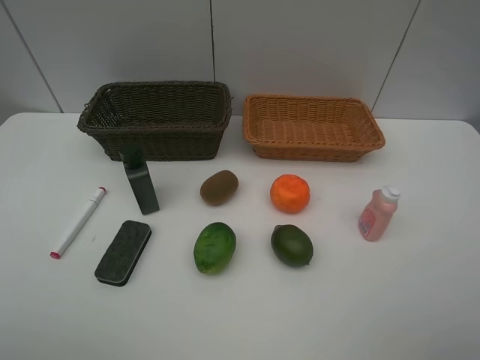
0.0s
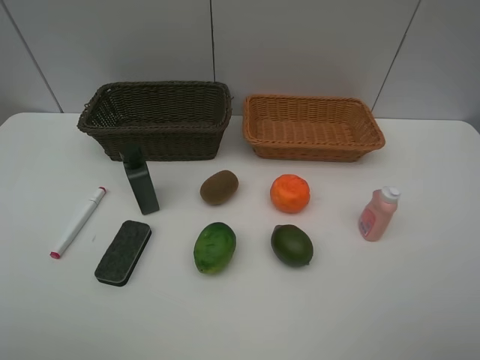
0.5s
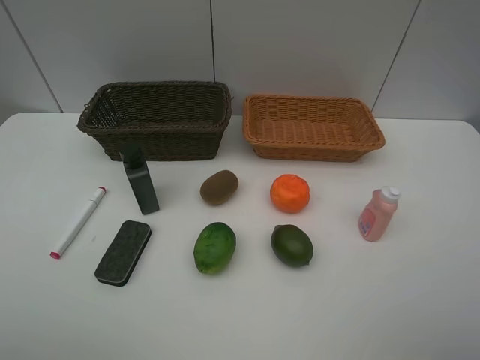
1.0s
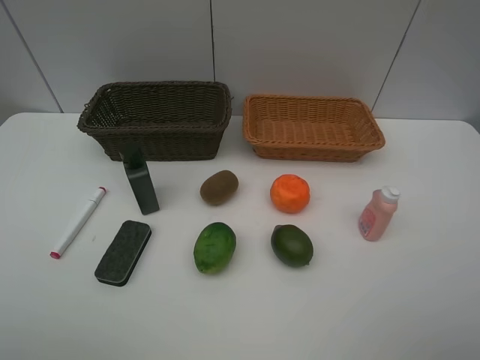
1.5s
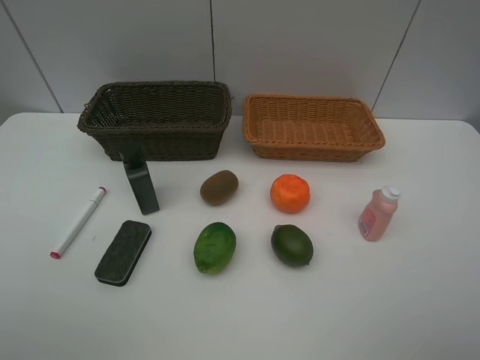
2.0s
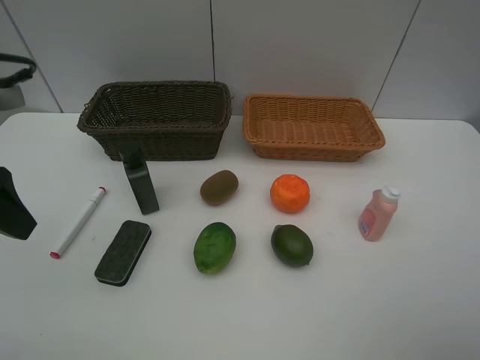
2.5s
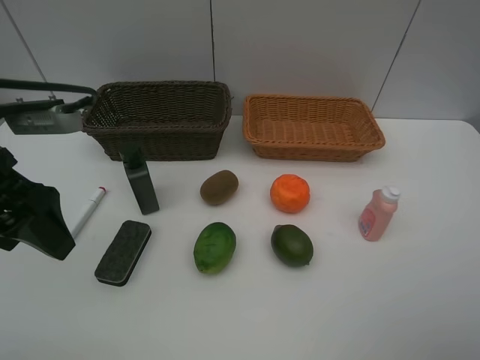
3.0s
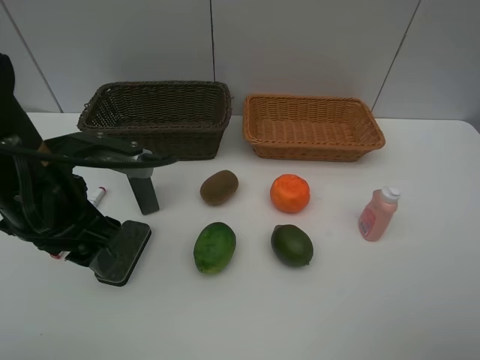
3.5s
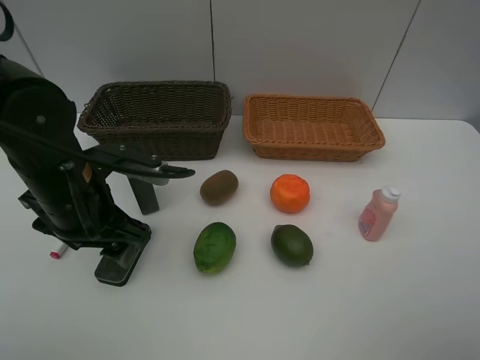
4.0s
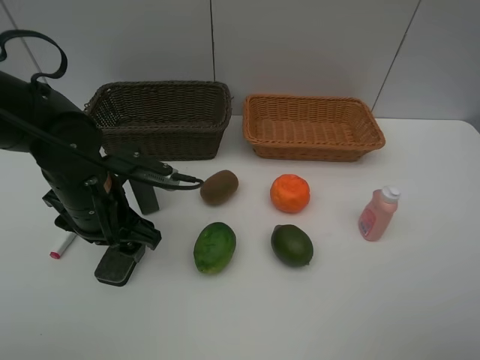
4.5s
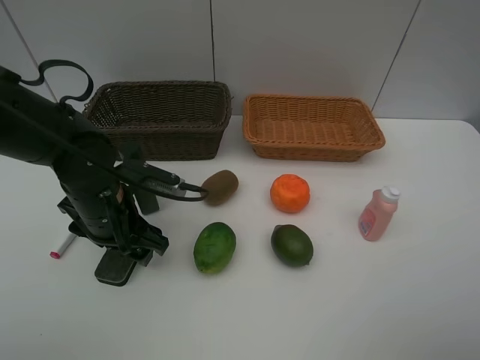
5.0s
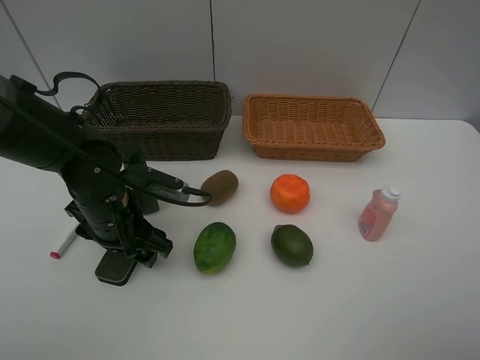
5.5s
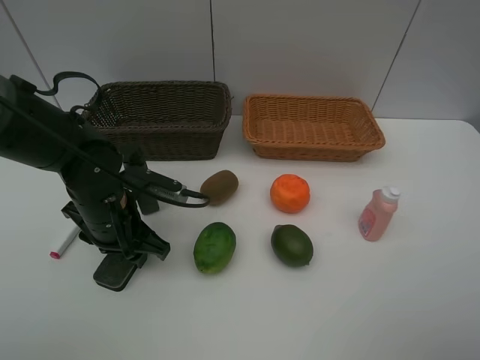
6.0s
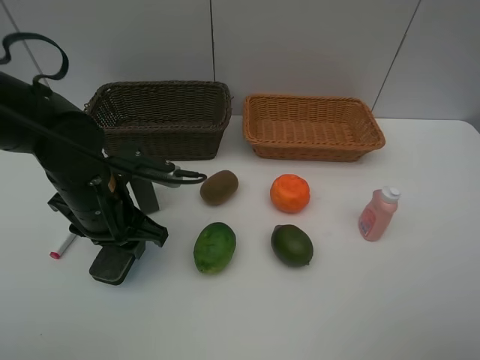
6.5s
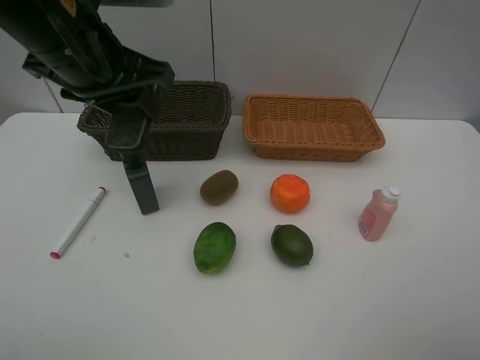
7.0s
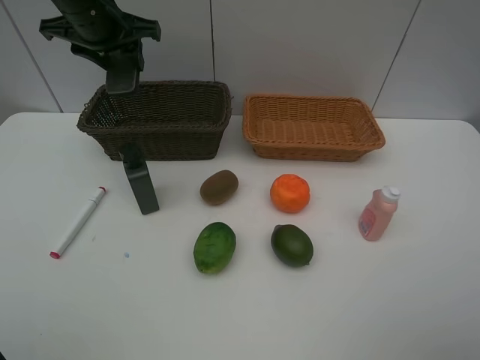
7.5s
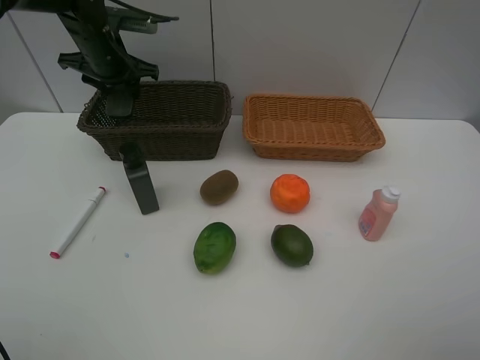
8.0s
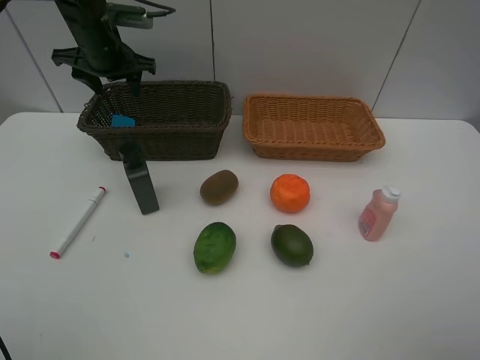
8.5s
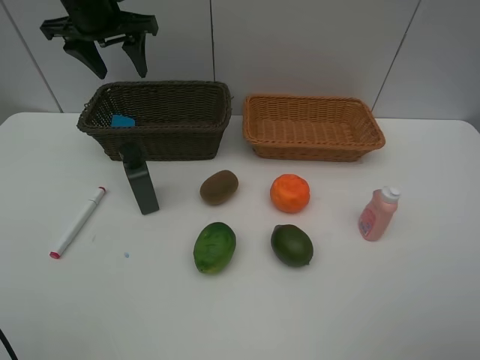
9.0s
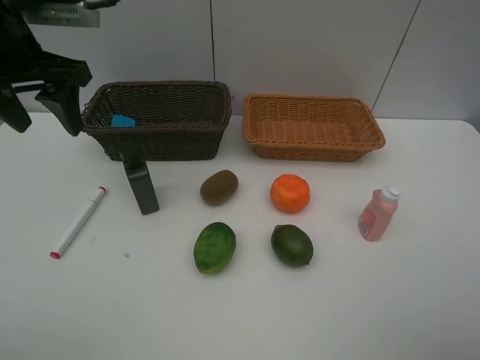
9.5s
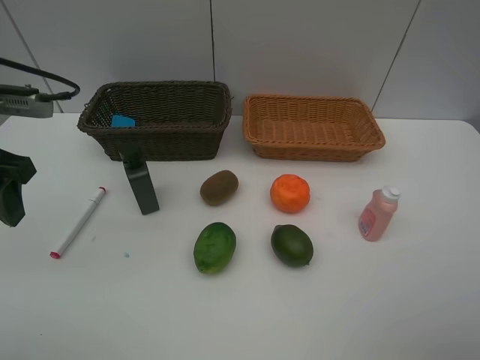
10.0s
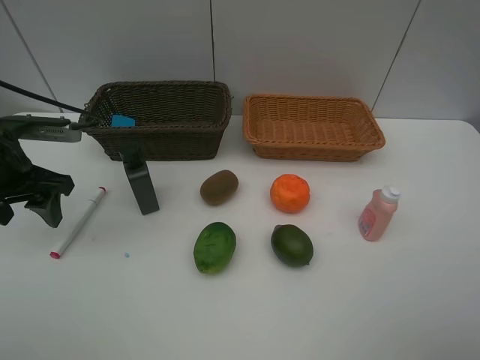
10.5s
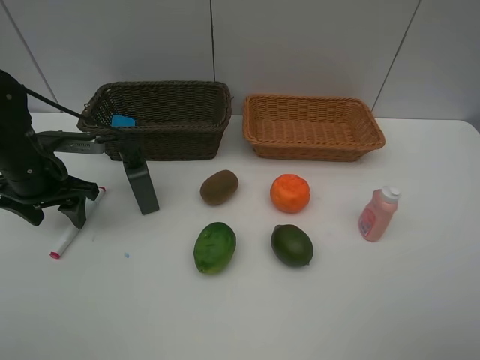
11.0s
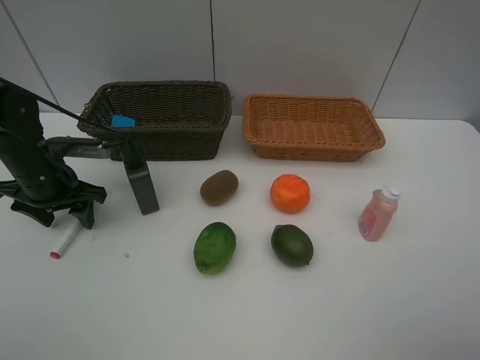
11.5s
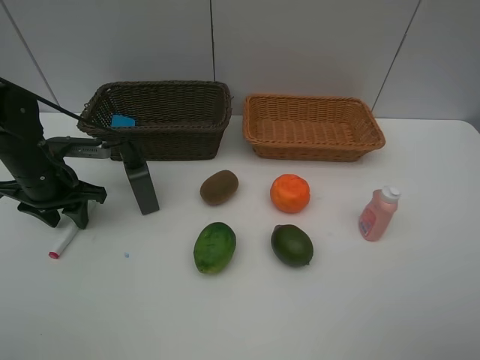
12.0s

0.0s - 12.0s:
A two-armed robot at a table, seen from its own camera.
Task of the whole recording: Place multiple objects separately in different baskets.
Step, 0.0s - 6.5s: Pick up blackboard eraser with left gripper.
Step, 7.0s - 8.5s: Place the blackboard eraser in the dark basket with left gripper.
2.0s - 4.0s: The left gripper moves forward, to the right and downward, some 25 cm.
4.0s - 6.0s: The left gripper is displaced downward by approximately 5 cm, and closes its fingers.
6.0s - 8.0s: The left gripper travels forward and upward by some 25 cm.
8.0s - 10.0s: The left gripper moves backward, approximately 25 cm.
10.0s - 12.0s: The left gripper is displaced downward and forward by approximately 15 cm, and closes up.

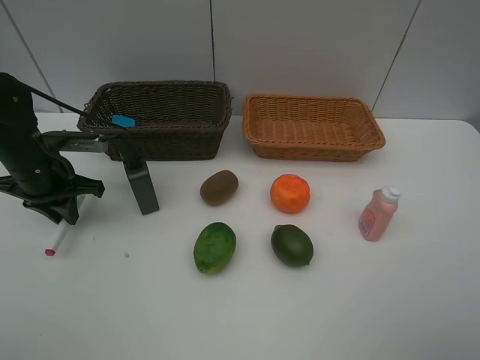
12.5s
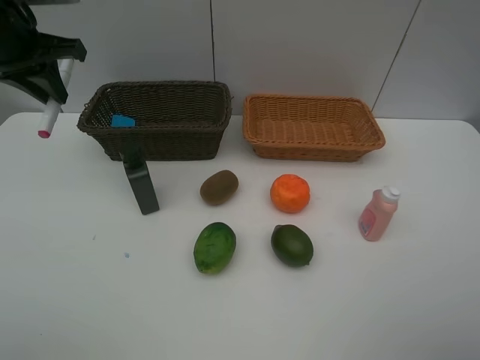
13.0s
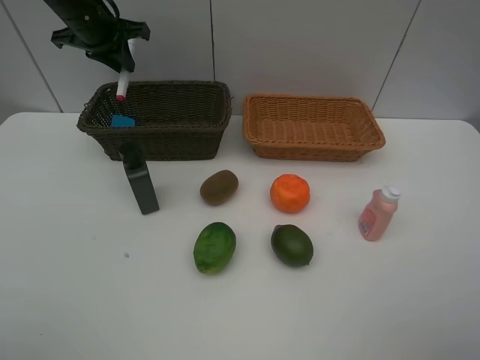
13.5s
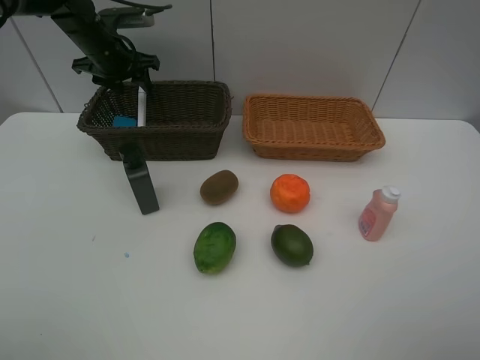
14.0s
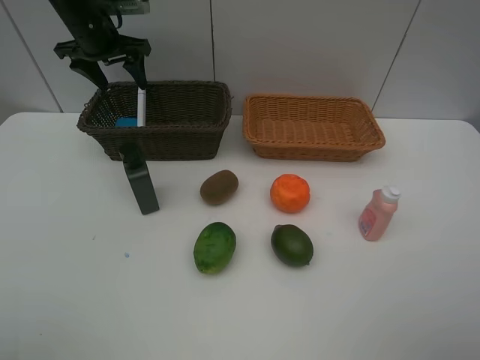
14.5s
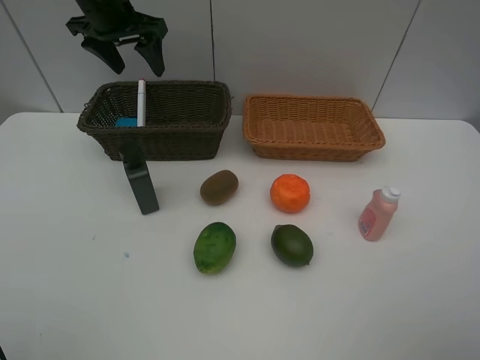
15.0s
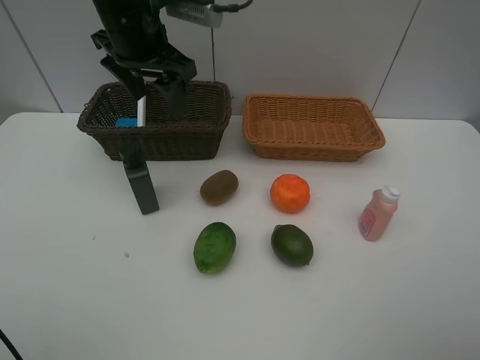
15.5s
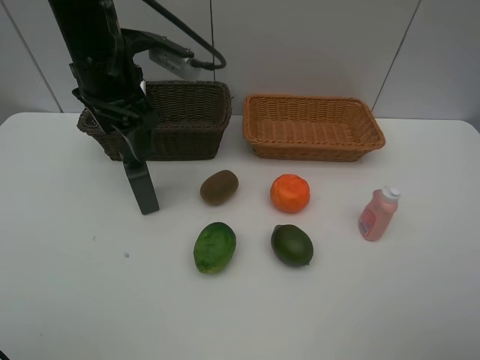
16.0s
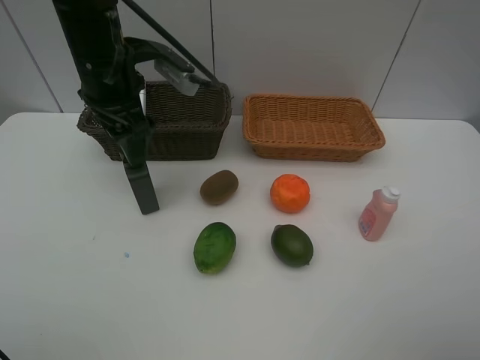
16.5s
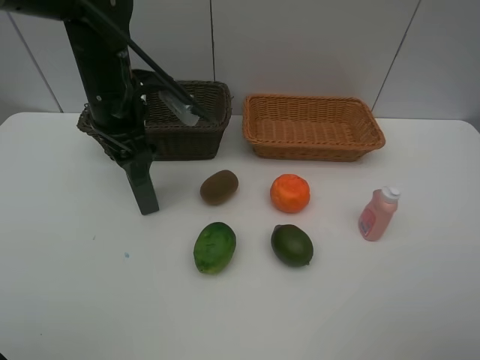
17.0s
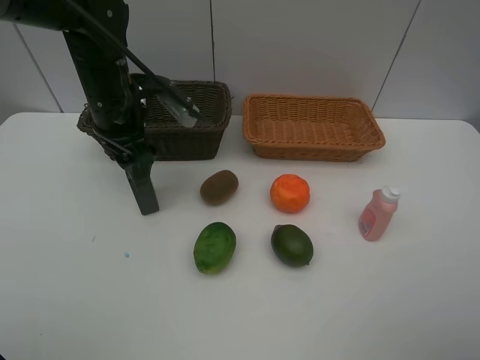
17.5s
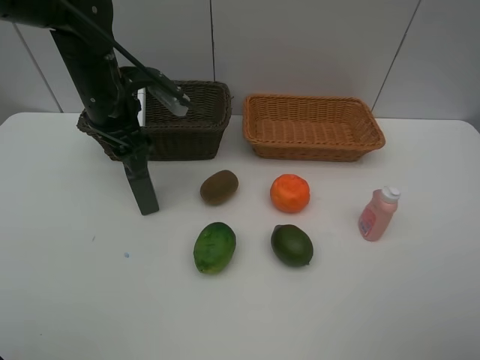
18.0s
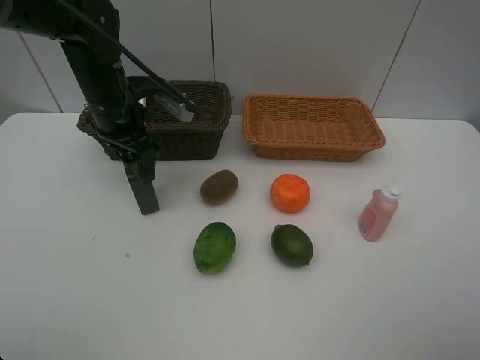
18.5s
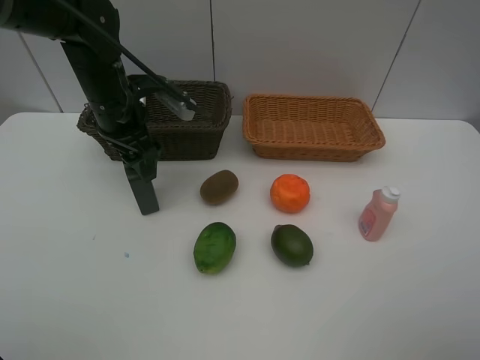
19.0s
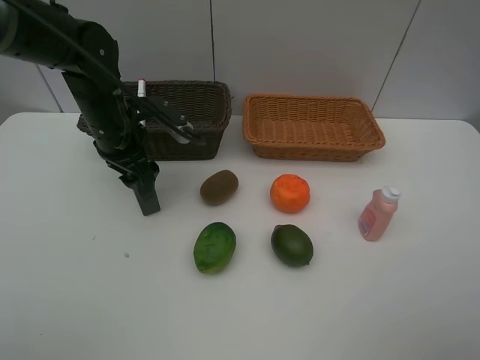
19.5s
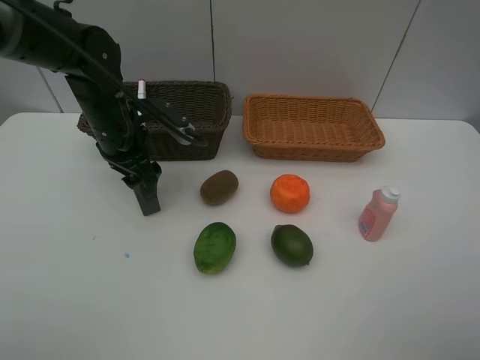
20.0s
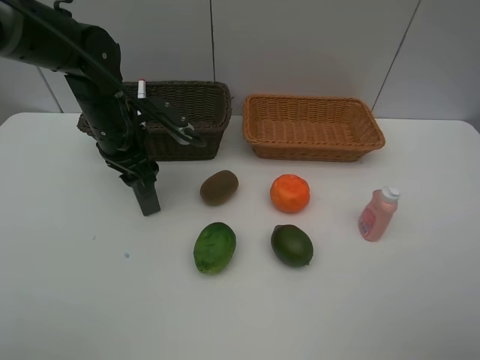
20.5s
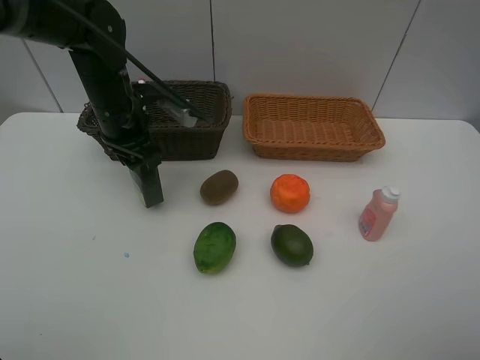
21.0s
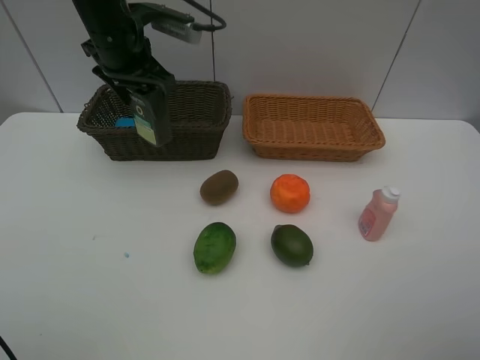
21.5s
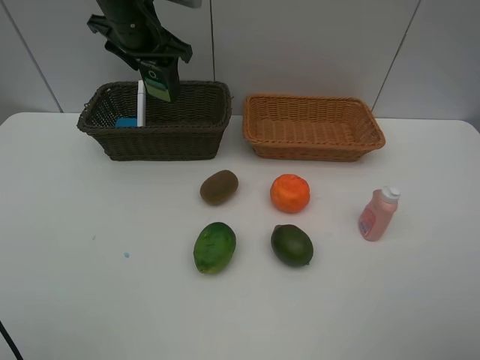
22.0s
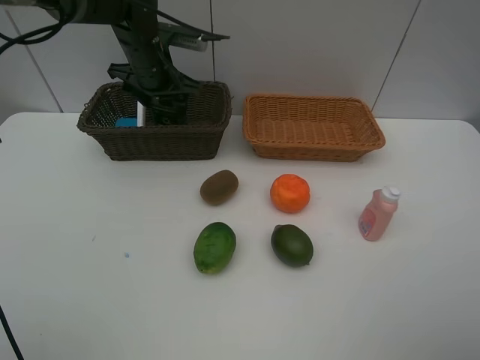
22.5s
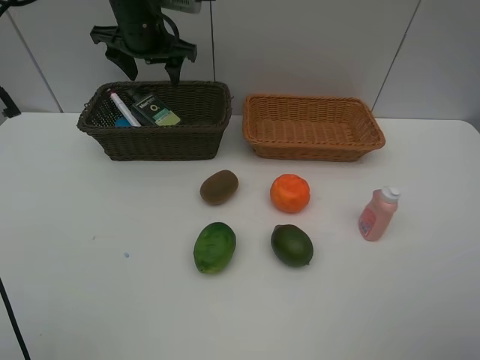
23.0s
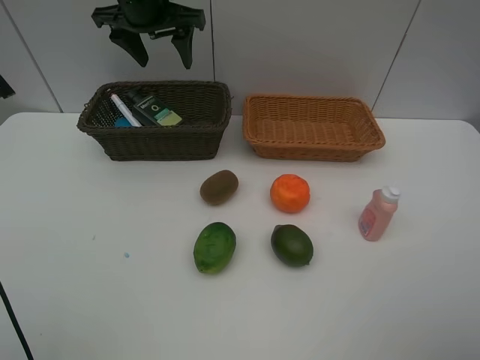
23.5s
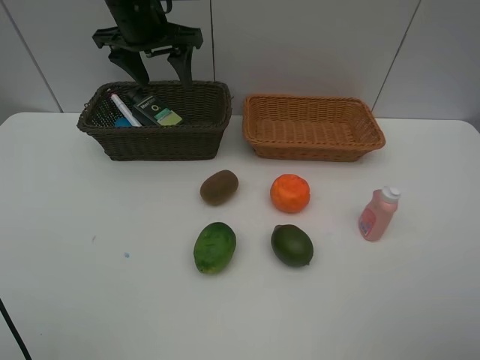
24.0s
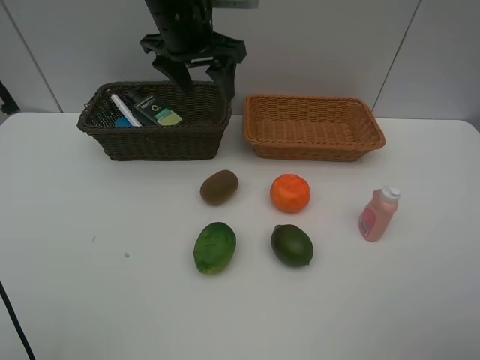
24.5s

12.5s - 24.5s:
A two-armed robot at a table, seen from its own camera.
Task of the whole recording: Place multiple objects separately in different baskets.
Step, 13.0s - 14.0s: Place the pink marker pen in the dark basket with left gripper.
Step, 14.5s - 21.0s: Pick up the hard facial cleanser with left gripper.
Step, 21.5s - 22.5s: Place the hard facial cleanser in the dark basket with left gripper.
12.5s - 14.5s: The left gripper heads forward and upward, covering roughly 20 cm, and opens.
14.5s - 16.5s: The left gripper goes roughly 20 cm backward and to the right.
16.5s - 18.5s: The left gripper moves downward, approximately 5 cm.
18.5s - 20.5s: The grippers make only small movements.
20.5s - 22.5s: The left gripper is displaced forward by roughly 10 cm.
22.5s - 24.5s: The left gripper shifts roughly 15 cm upward, to the right and backward.

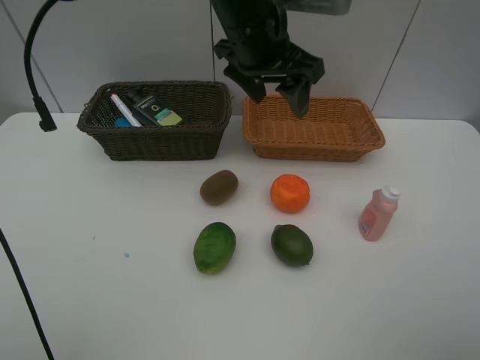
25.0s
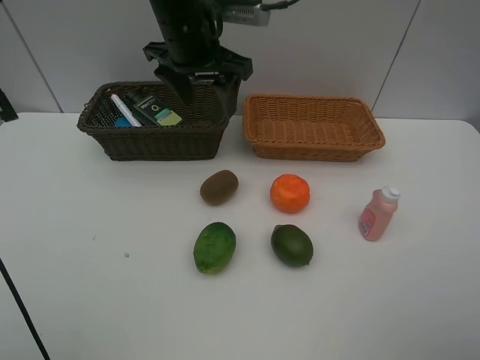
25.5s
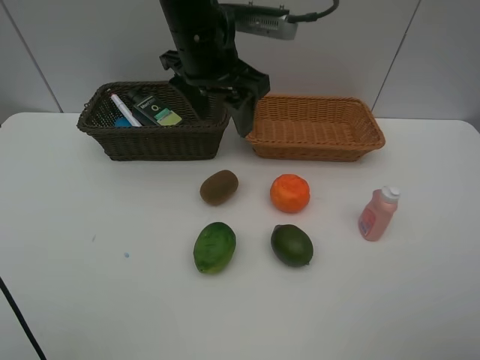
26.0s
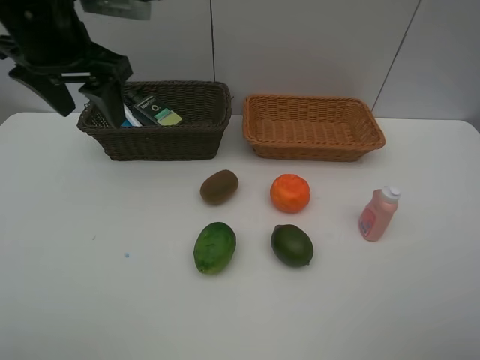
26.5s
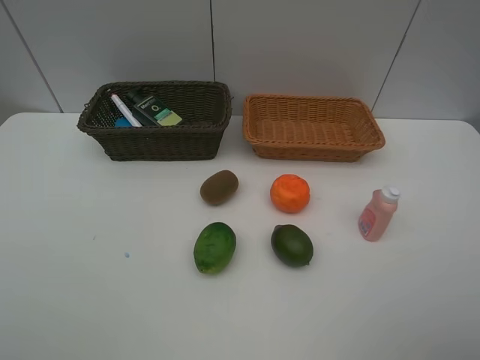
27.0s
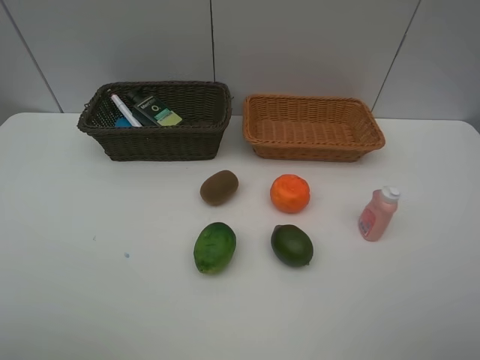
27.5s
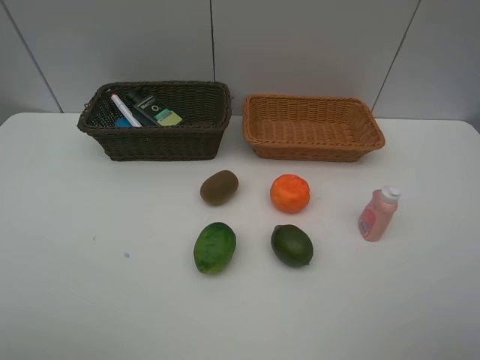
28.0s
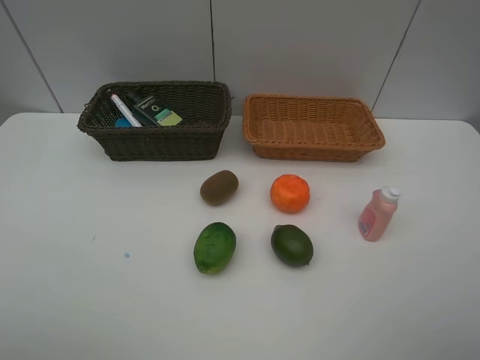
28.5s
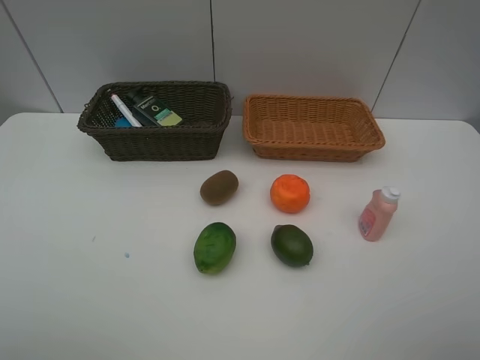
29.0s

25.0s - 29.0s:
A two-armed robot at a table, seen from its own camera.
Task of the whole recording: Place multiple objects separately in different baskets.
25.0s - 27.0s: The left gripper is displaced to the left and backward by approximately 40 cm.
